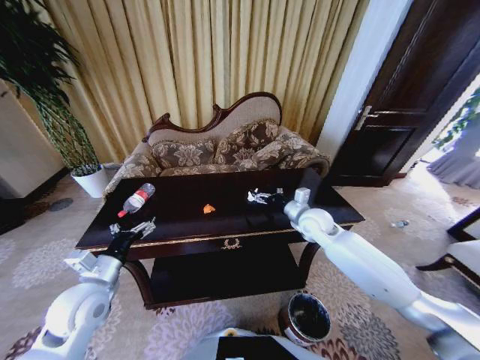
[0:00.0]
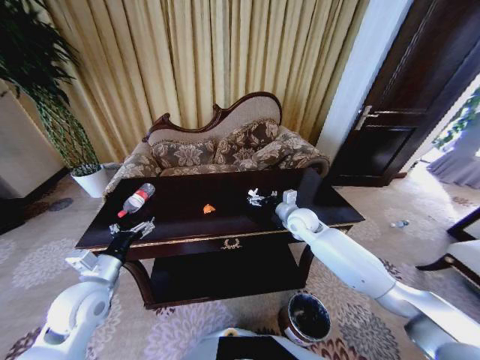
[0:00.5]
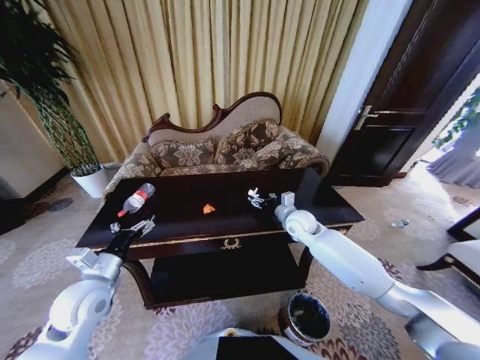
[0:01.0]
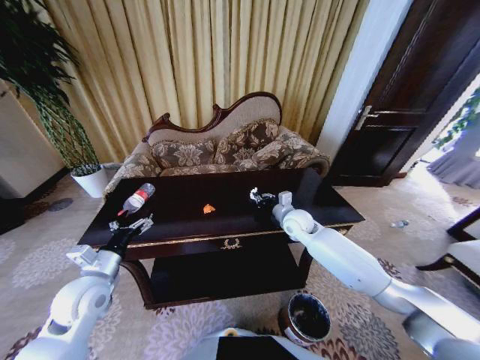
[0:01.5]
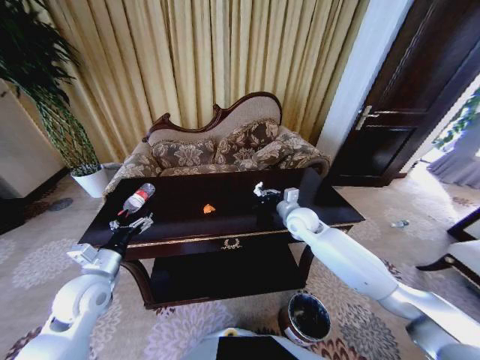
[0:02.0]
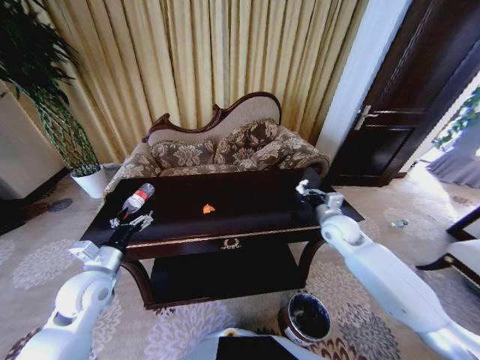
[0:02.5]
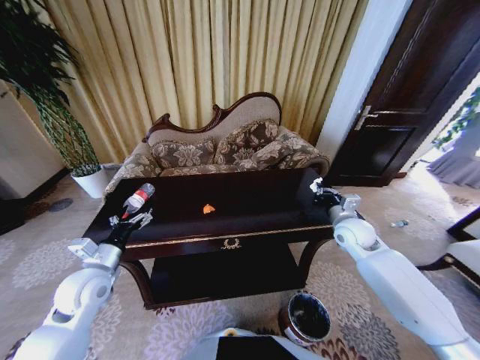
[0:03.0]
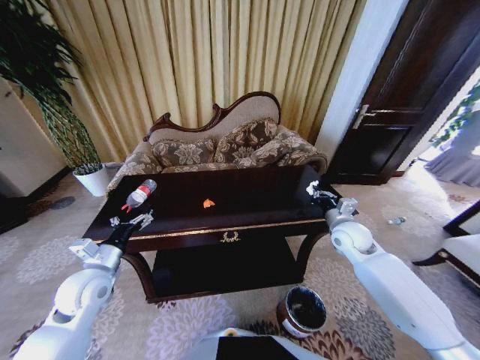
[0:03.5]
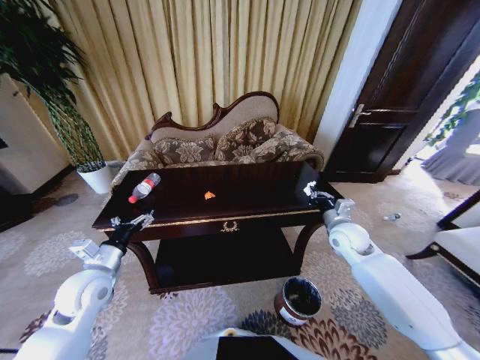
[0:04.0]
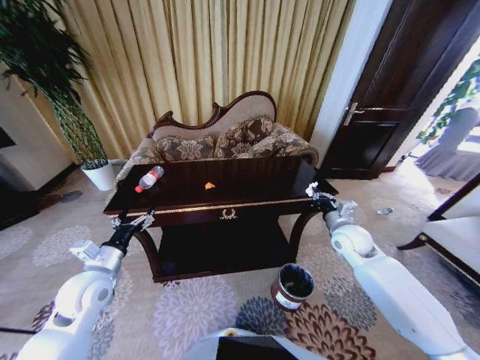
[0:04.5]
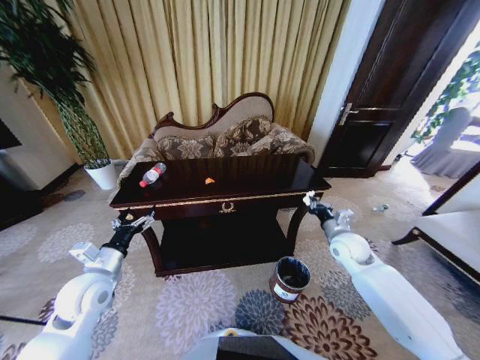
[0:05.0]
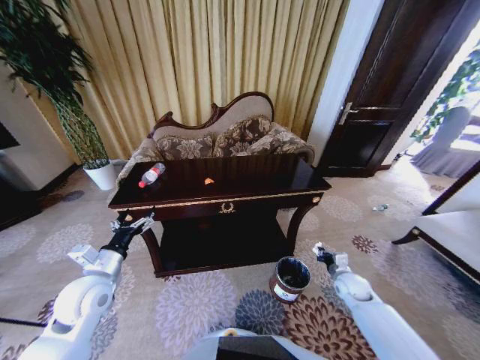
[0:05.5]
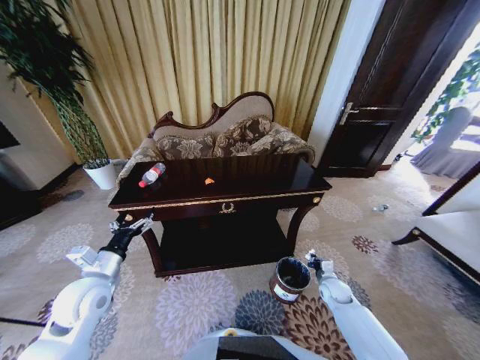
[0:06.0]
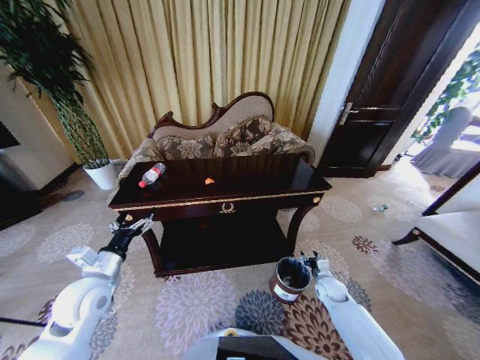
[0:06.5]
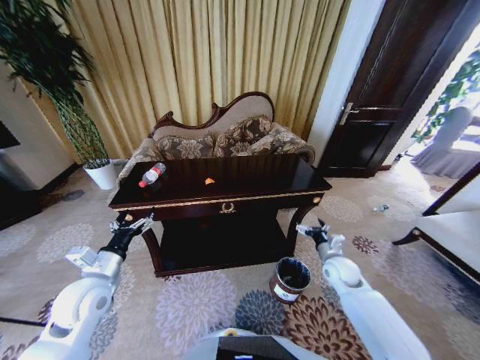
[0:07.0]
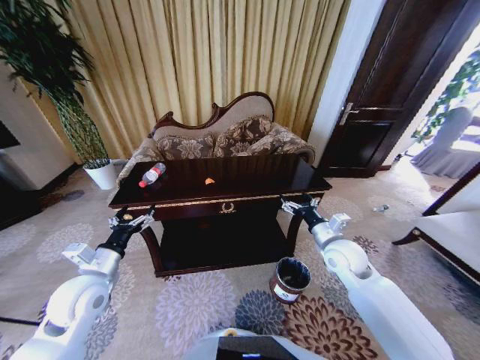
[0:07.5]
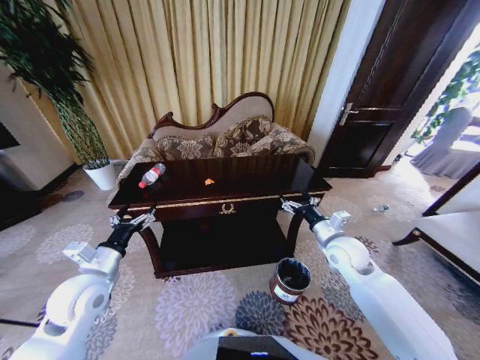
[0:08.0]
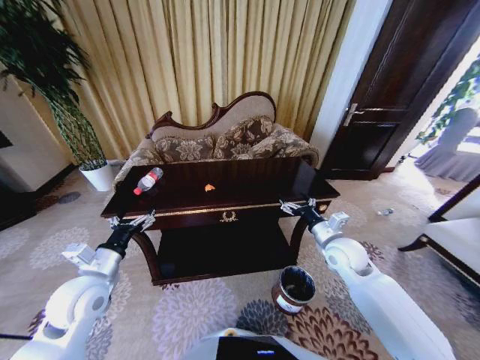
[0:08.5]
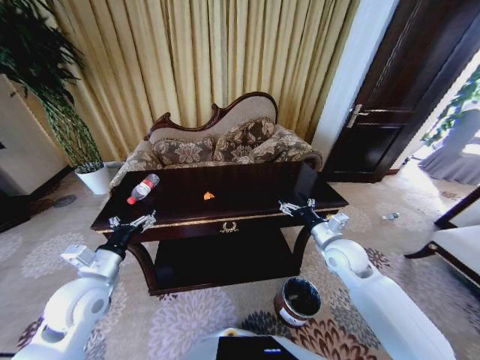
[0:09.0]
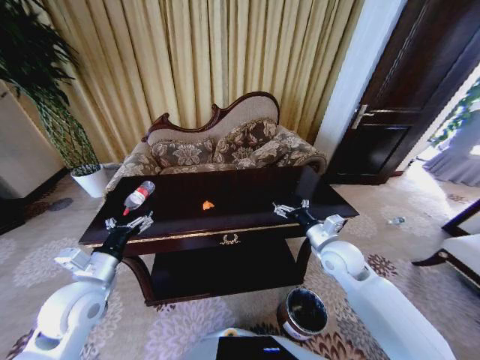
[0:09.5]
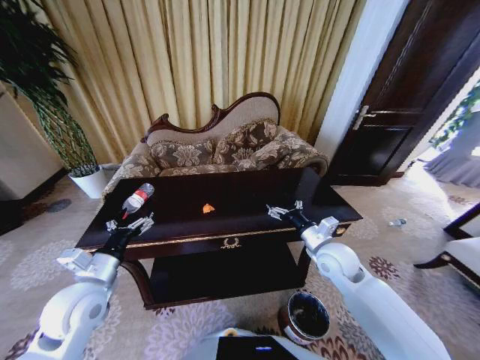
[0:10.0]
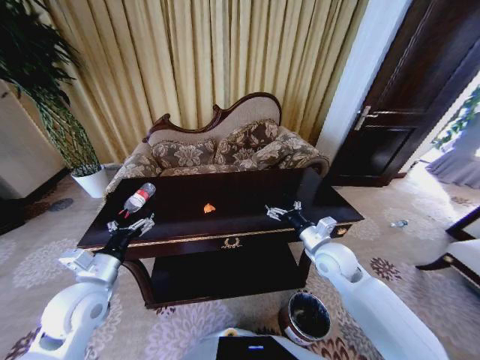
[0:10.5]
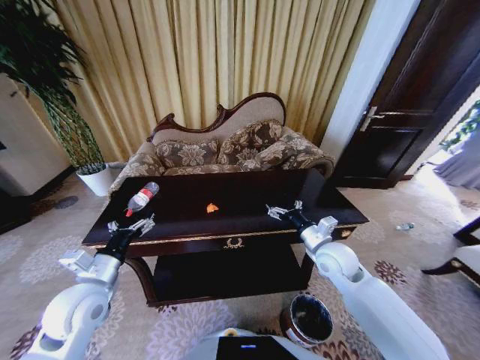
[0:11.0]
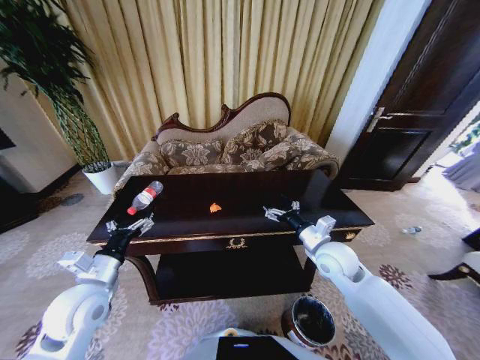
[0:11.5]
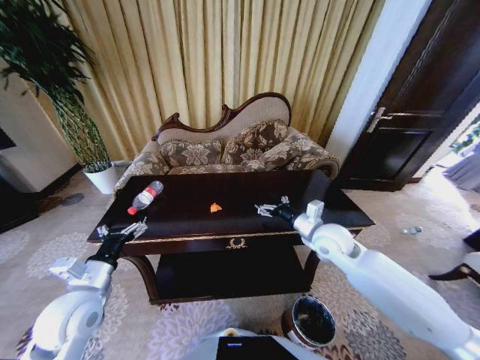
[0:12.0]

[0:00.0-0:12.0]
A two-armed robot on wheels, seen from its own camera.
Task of the whole recording: Move to the front of the table and place the trash on the table into the trash bin.
0:00.0 to 0:02.0: The right gripper closes its fingers.
0:02.0 to 0:04.0: The right gripper shifts about 15 cm to the right and backward.
0:04.0 to 0:06.0: The right gripper is displaced downward by approximately 25 cm.
0:06.0 to 0:08.0: The right gripper travels upward by some 25 cm, and opens its fingers.
0:10.0 to 0:12.0: The right gripper shifts by approximately 5 cm.

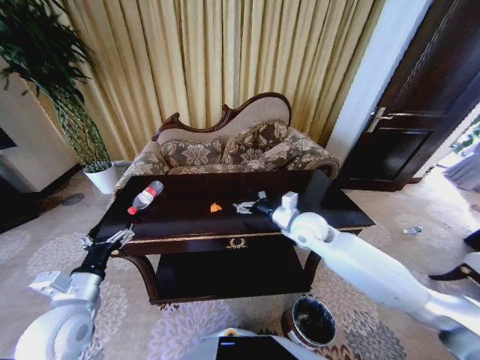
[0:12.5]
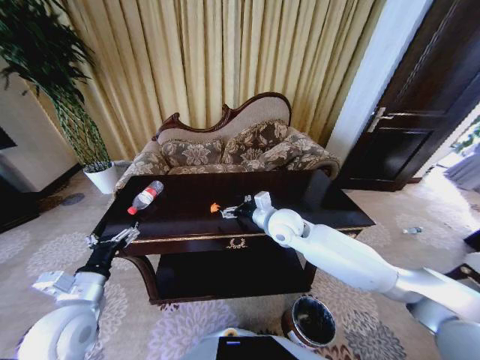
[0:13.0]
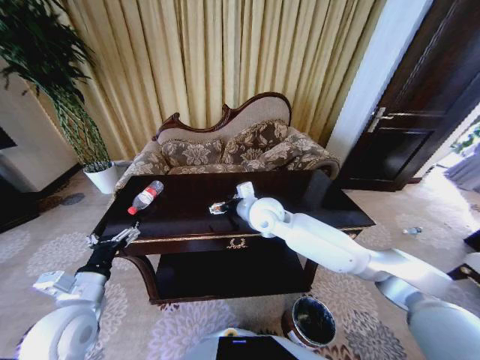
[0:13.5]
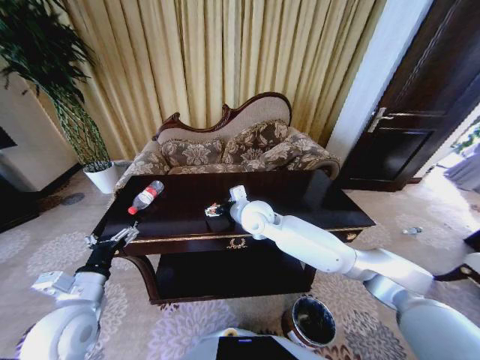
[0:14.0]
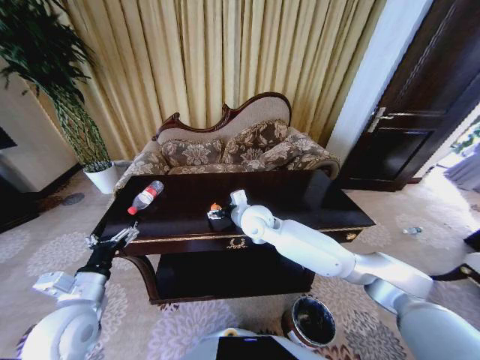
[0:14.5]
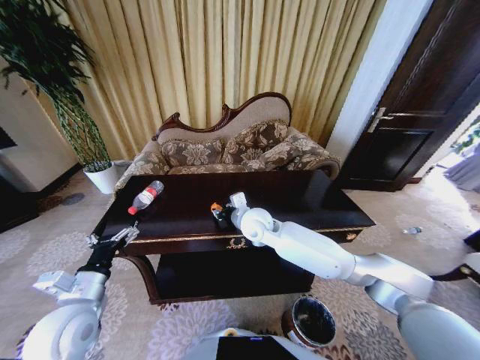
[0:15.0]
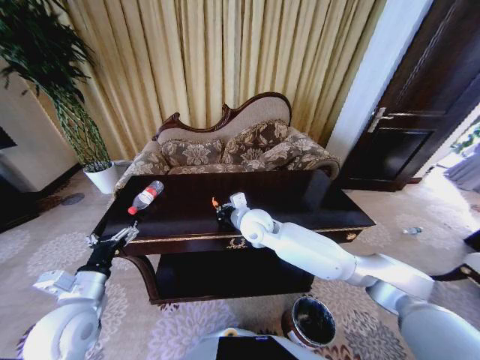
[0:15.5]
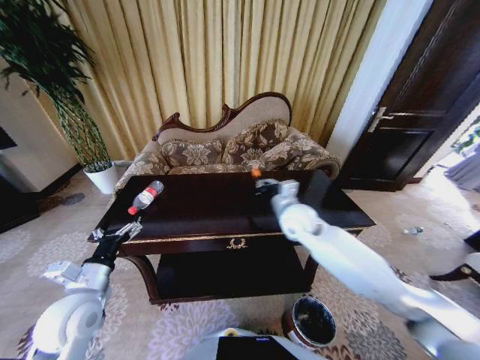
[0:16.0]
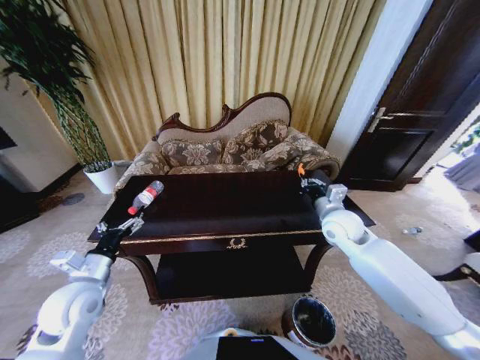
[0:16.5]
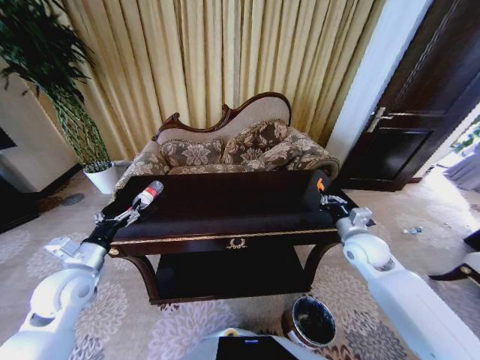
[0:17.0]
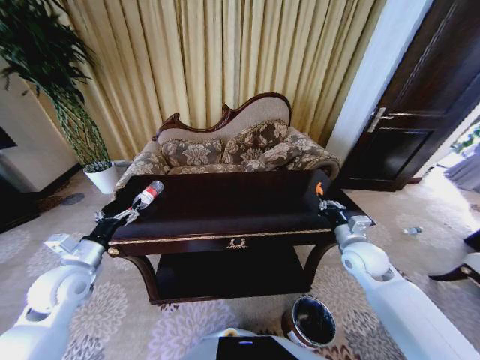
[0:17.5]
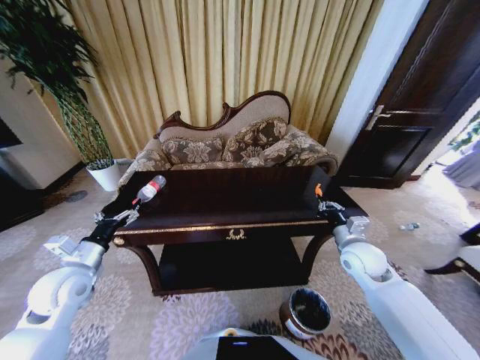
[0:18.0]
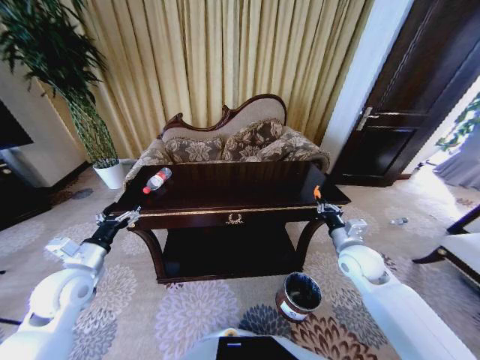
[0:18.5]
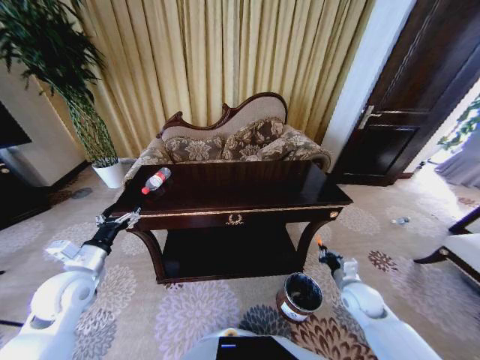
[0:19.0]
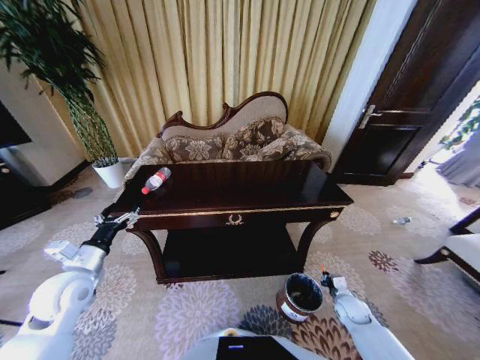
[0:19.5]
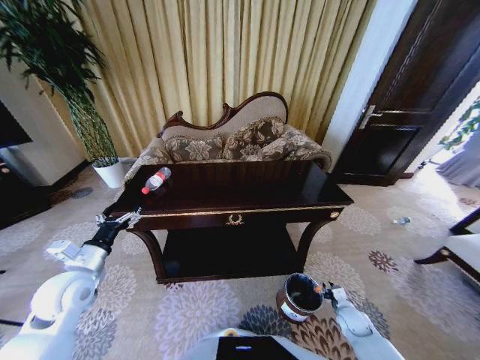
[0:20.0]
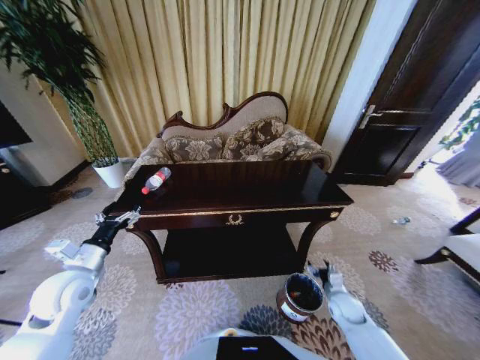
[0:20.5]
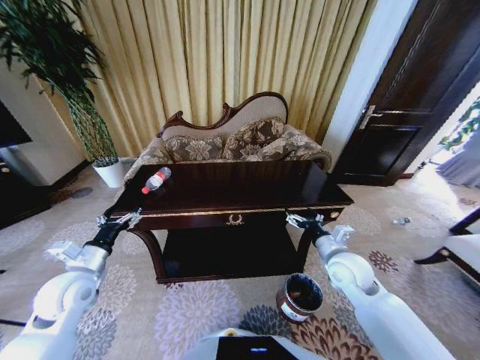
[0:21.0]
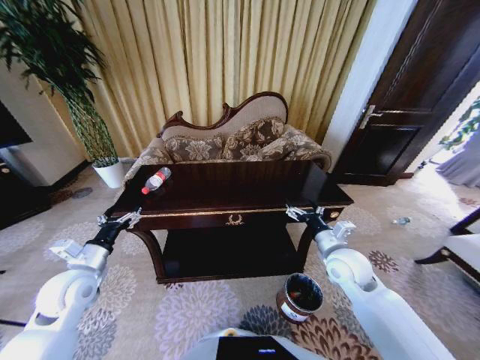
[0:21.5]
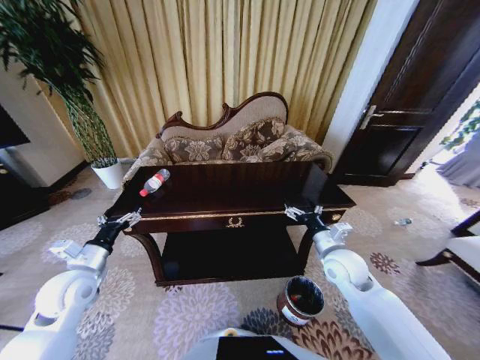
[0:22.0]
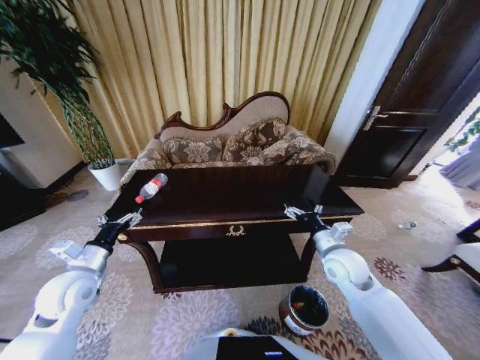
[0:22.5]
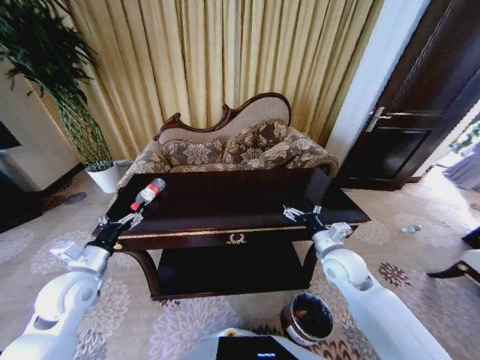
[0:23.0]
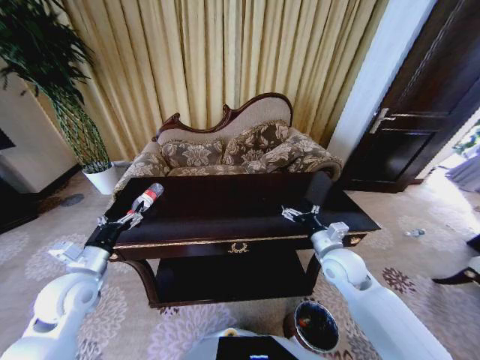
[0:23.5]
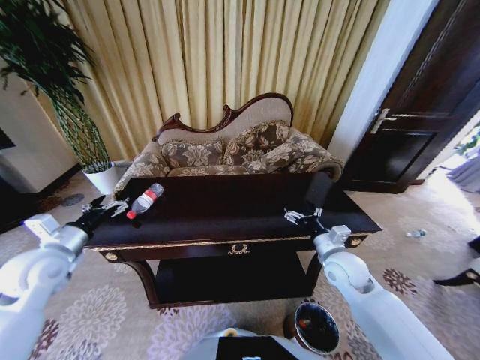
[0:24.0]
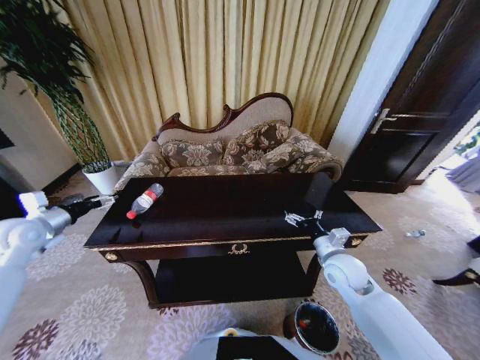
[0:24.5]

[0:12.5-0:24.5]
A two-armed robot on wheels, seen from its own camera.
Task of the whole recording: Move to the front of the table and place the trash on the table into the trash bin.
0:12.5 to 0:14.5: The right gripper goes roughly 15 cm to the left.
0:14.5 to 0:16.5: The left gripper changes place by about 5 cm. Meanwhile the right gripper goes about 25 cm to the right, and closes up.
0:16.5 to 0:18.5: The right gripper shifts approximately 10 cm backward and downward.
0:18.5 to 0:20.5: The right gripper heads downward, covering about 20 cm, and opens.
0:20.5 to 0:22.5: The right gripper travels upward and to the left by roughly 20 cm.
0:22.5 to 0:24.5: The left gripper travels to the left, forward and upward by about 20 cm.

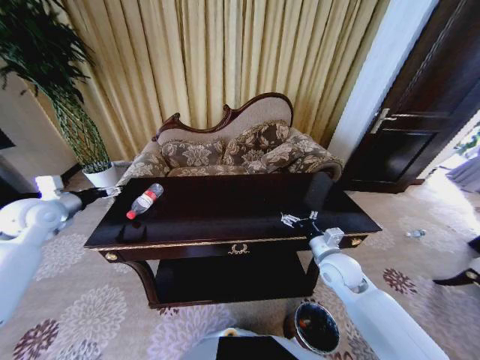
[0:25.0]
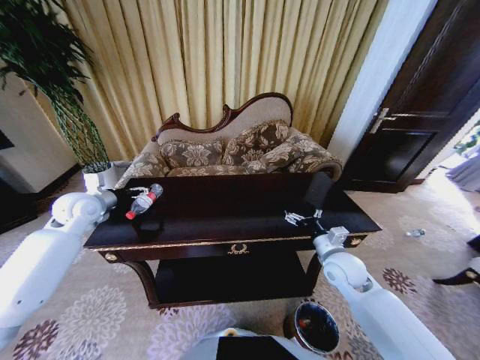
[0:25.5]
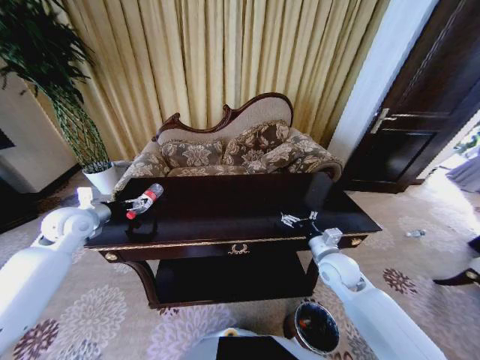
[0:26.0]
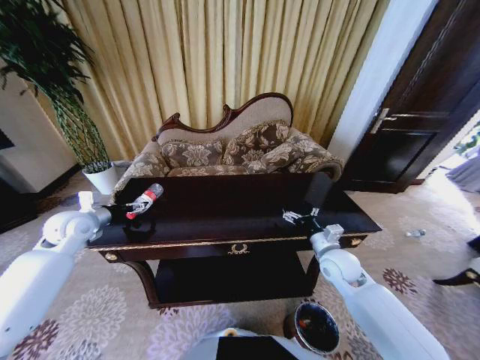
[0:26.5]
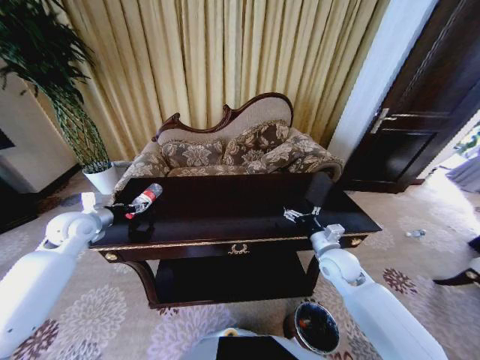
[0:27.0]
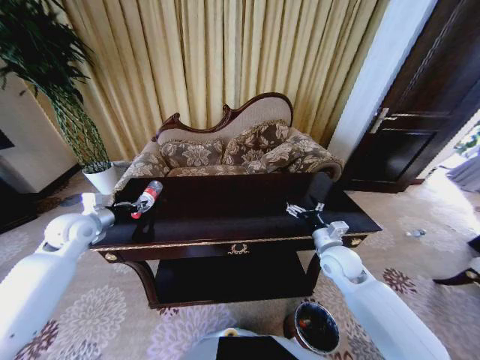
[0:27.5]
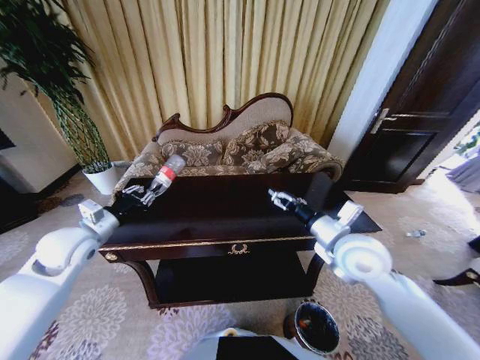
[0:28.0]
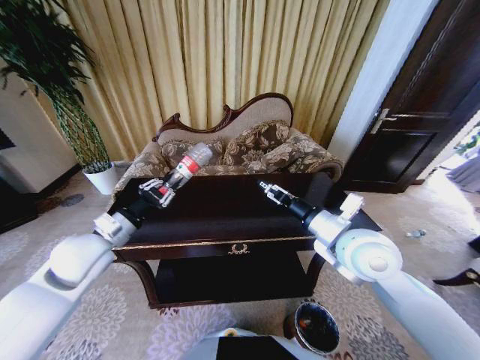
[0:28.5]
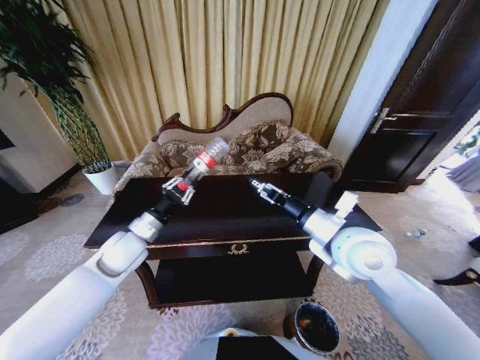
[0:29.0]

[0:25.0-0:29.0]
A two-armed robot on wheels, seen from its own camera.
Task of the whole recording: Move to the front of the table and place the trash on the table into the trash bin.
0:25.0 to 0:27.0: The left gripper is displaced downward and to the right by roughly 10 cm, and closes its fingers.
0:27.0 to 0:29.0: The left gripper moves to the right, some 15 cm, and closes its fingers. The right gripper shifts some 20 cm upward.
